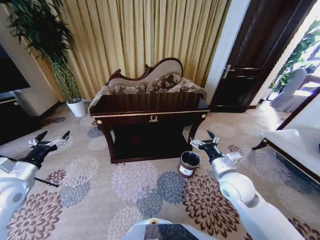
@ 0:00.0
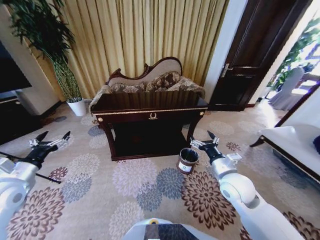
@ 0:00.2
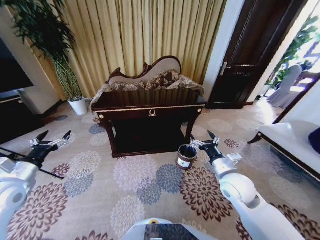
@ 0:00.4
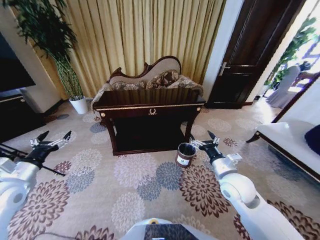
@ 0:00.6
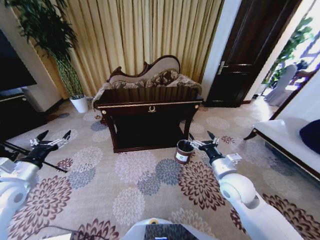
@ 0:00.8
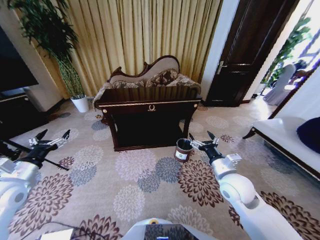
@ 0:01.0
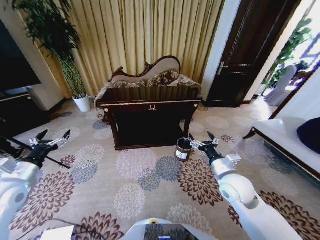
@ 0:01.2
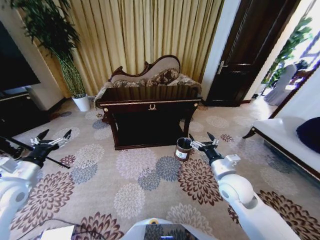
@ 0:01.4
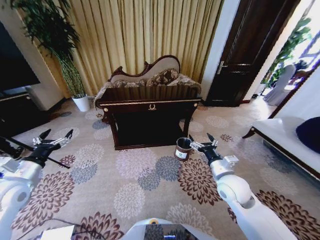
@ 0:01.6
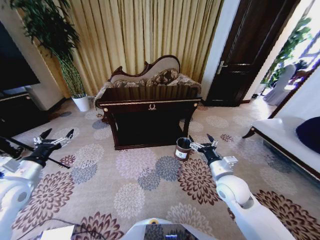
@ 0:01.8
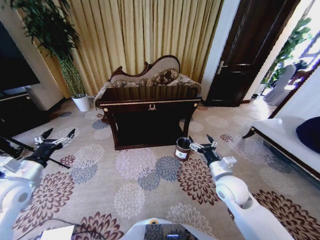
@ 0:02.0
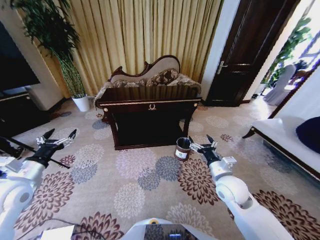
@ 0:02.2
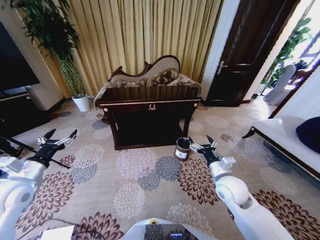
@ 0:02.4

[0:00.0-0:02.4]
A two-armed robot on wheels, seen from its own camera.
Task of the whole recording: Move to the front of the table and place the trash on the table into the trash bin.
0:01.2 to 0:02.4: There are only small adjustments of the grippers.
